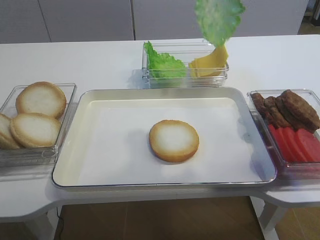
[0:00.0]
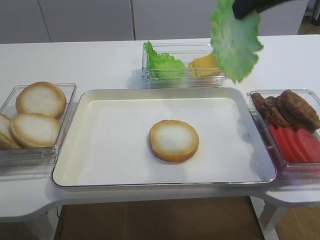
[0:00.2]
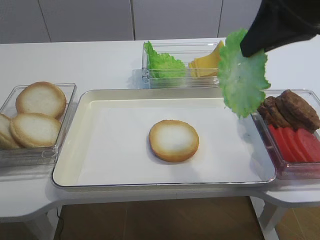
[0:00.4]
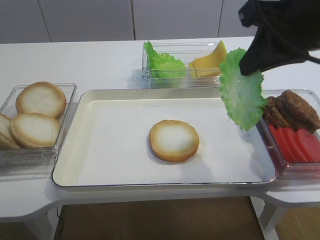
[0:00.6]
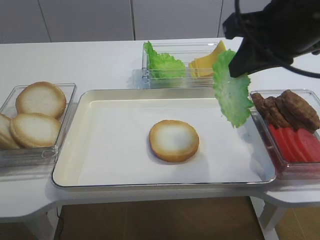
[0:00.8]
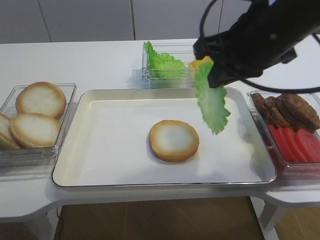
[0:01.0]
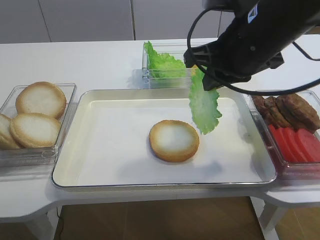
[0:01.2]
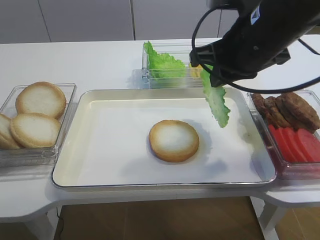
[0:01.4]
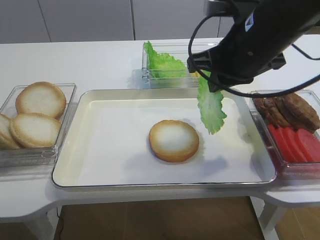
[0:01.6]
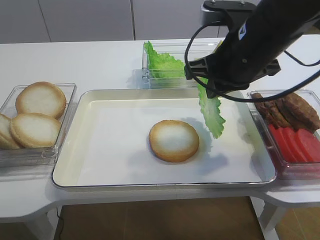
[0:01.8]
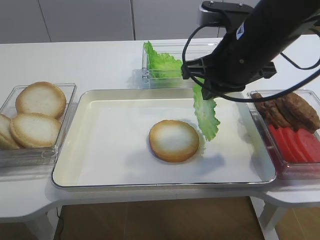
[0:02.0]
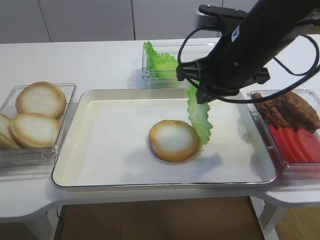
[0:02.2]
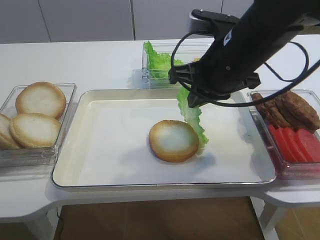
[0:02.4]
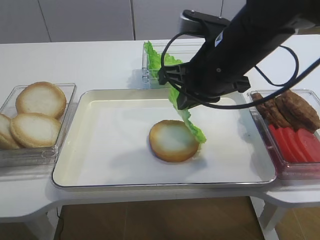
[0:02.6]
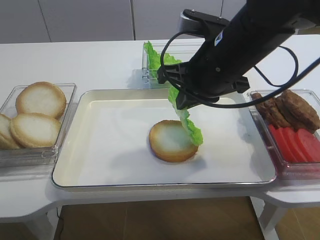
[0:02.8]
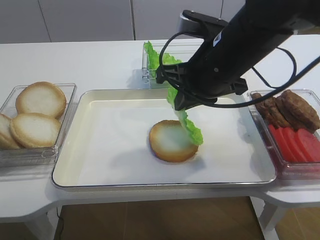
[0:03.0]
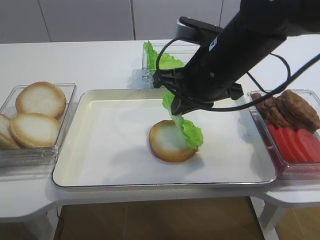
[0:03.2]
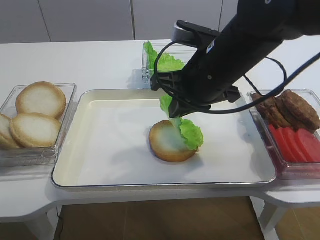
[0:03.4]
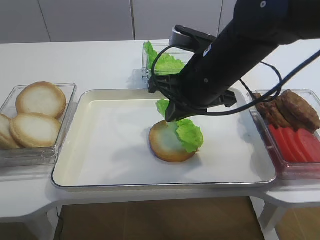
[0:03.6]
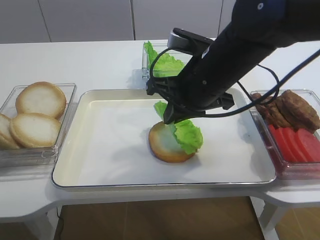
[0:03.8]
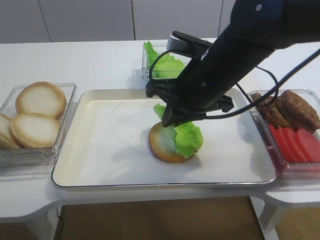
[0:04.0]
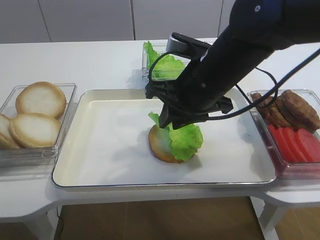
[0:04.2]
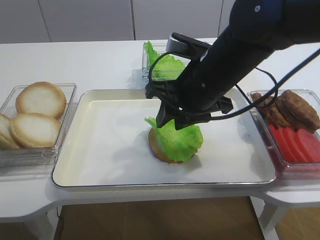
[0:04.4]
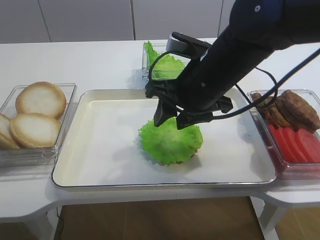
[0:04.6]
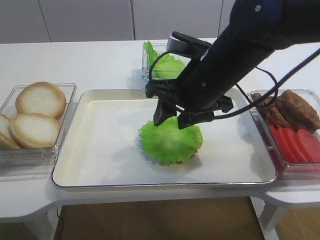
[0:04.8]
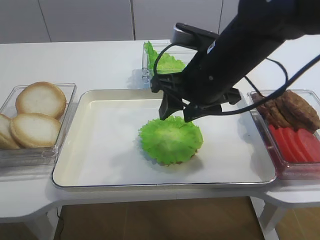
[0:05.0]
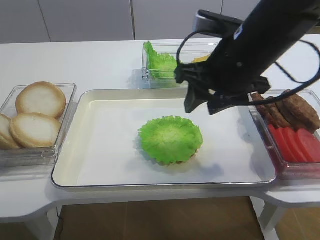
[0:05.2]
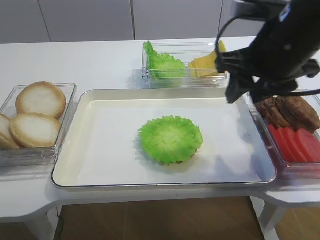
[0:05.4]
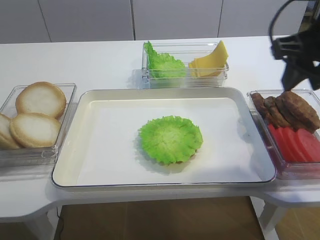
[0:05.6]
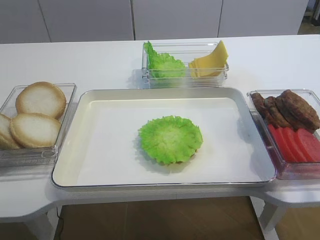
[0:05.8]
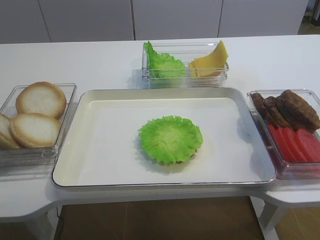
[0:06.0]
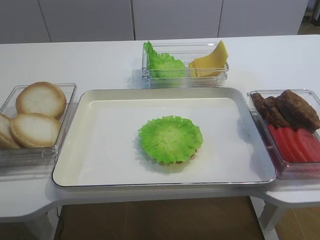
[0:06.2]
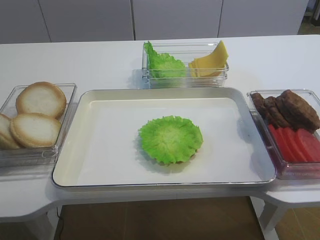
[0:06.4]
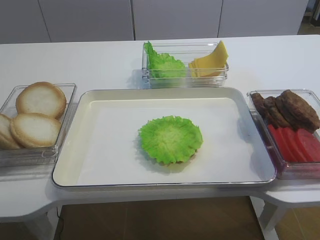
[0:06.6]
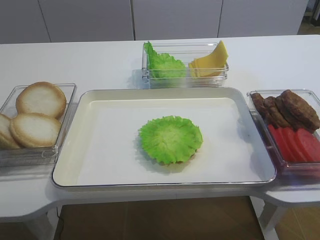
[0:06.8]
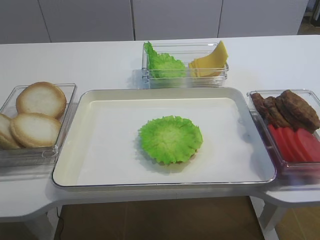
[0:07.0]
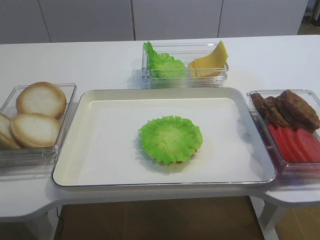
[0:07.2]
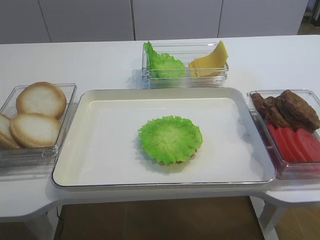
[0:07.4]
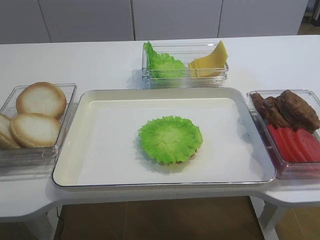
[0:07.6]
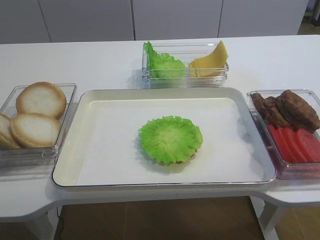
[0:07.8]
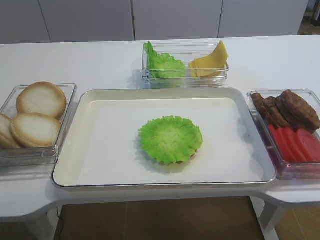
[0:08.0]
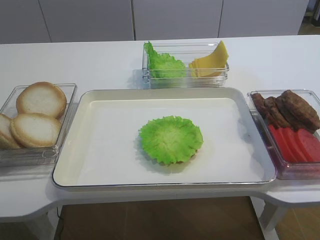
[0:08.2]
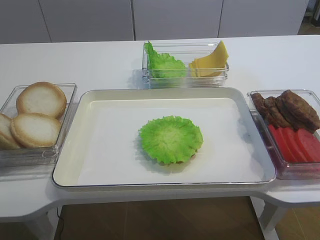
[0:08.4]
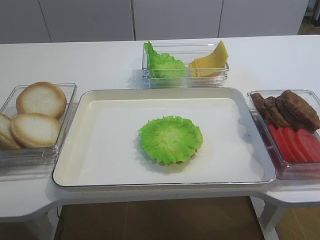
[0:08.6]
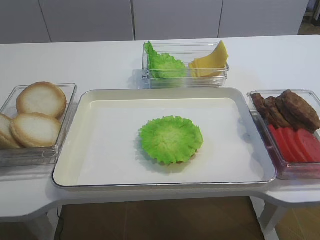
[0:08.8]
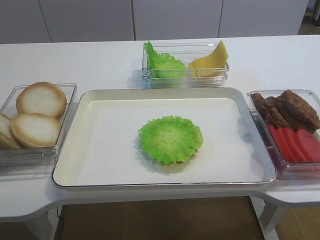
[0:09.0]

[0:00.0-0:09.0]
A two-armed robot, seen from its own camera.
Step, 0:00.0 to 0:04.6: Place the lettuce leaf on the bread slice with the right gripper.
0:00.0 to 0:01.6: The right gripper is displaced downward by some 15 cm.
0:01.6 to 0:03.0: There are only small adjustments of the grippers.
0:03.0 to 0:04.4: The right gripper opens up.
0:04.4 to 0:06.0: The right gripper moves to the right, upward and backward, approximately 25 cm.

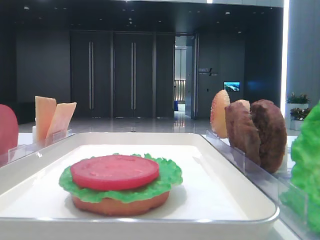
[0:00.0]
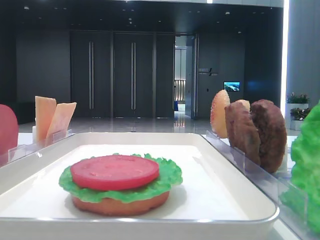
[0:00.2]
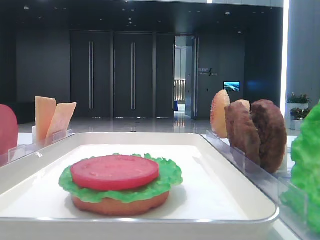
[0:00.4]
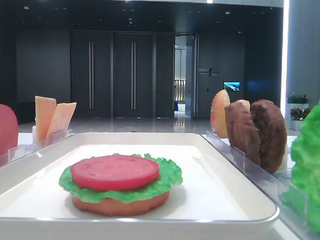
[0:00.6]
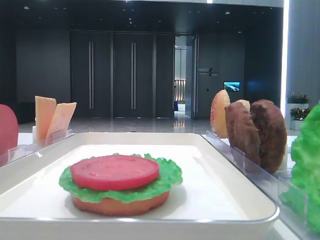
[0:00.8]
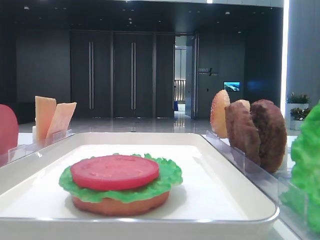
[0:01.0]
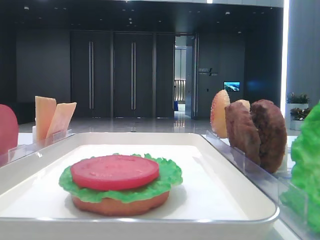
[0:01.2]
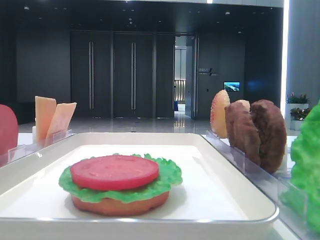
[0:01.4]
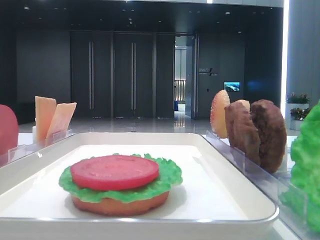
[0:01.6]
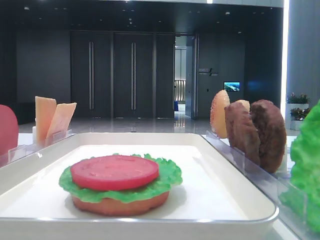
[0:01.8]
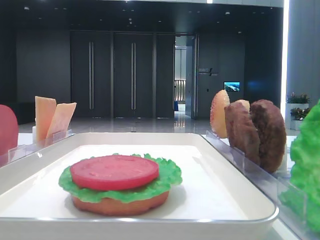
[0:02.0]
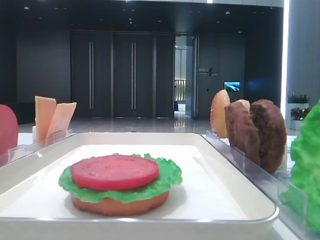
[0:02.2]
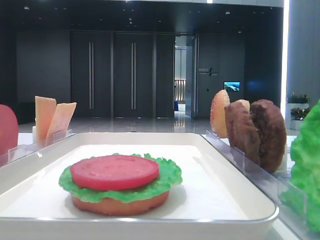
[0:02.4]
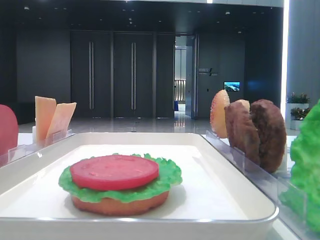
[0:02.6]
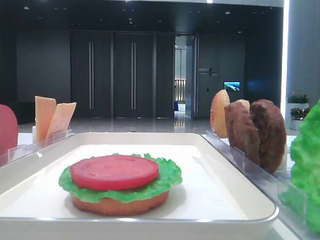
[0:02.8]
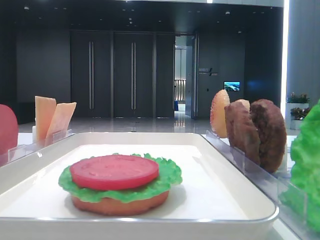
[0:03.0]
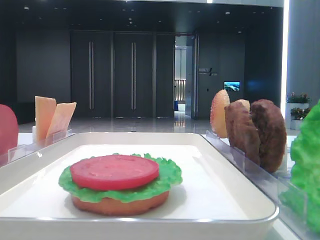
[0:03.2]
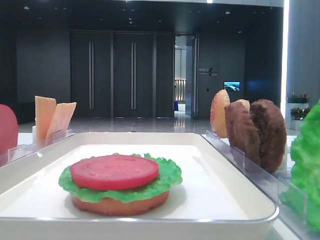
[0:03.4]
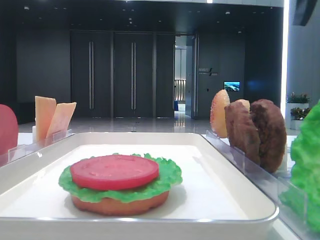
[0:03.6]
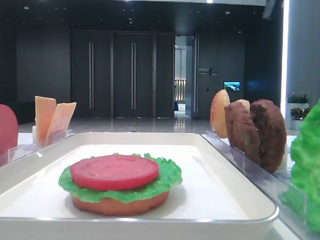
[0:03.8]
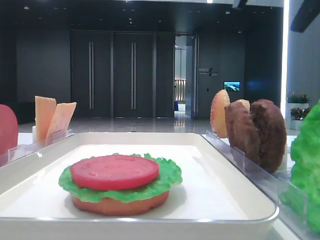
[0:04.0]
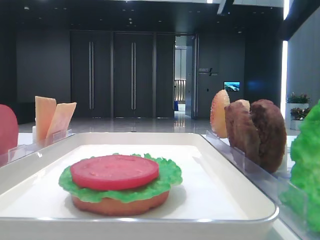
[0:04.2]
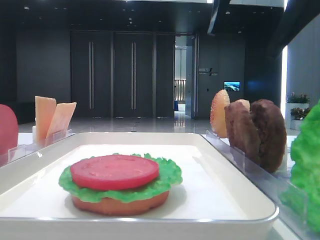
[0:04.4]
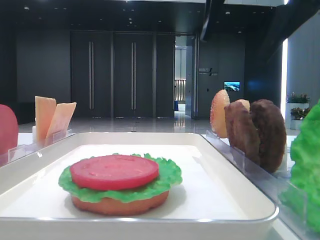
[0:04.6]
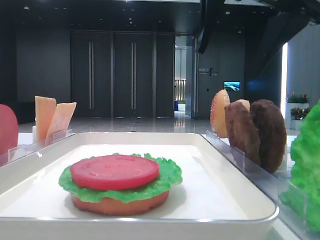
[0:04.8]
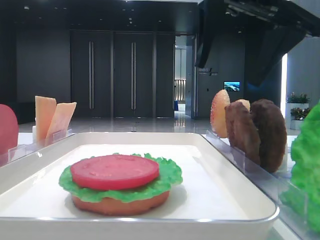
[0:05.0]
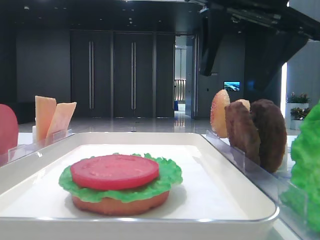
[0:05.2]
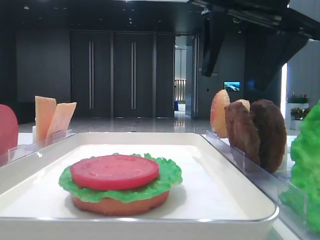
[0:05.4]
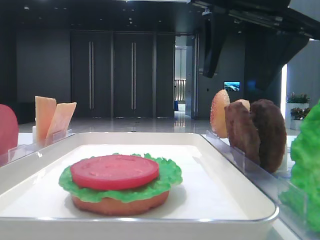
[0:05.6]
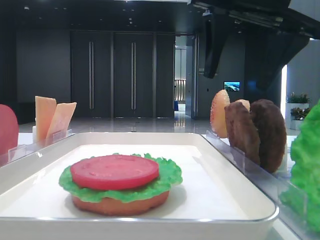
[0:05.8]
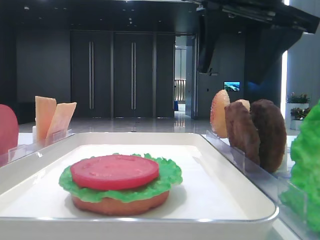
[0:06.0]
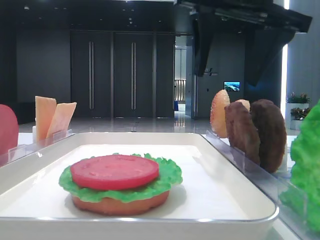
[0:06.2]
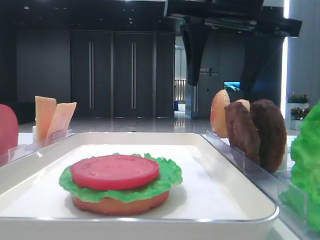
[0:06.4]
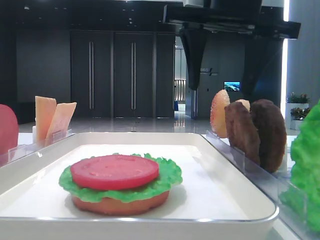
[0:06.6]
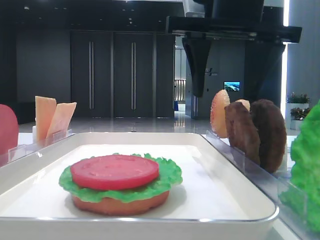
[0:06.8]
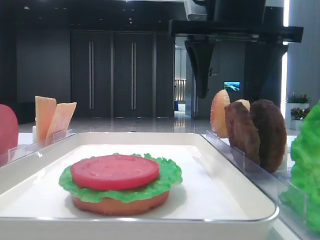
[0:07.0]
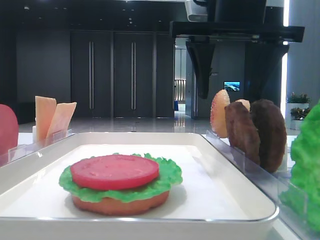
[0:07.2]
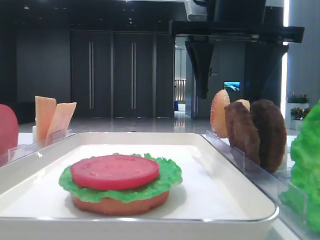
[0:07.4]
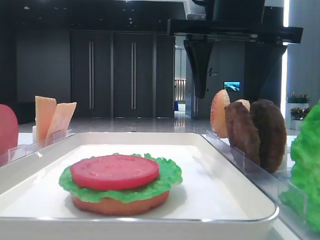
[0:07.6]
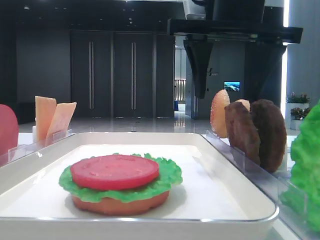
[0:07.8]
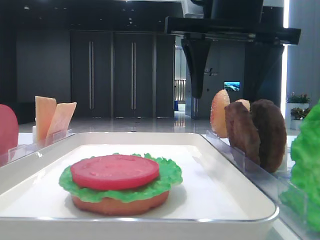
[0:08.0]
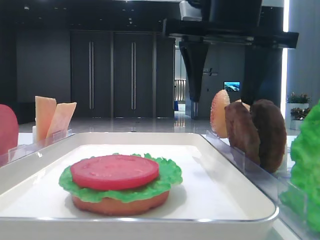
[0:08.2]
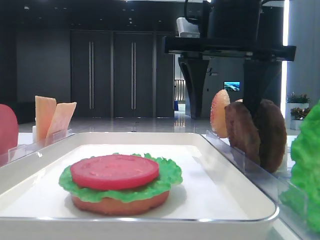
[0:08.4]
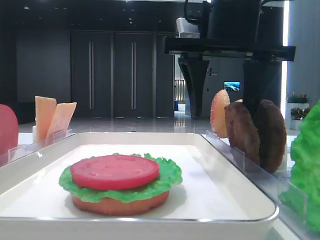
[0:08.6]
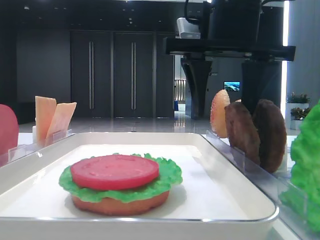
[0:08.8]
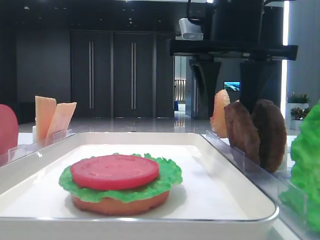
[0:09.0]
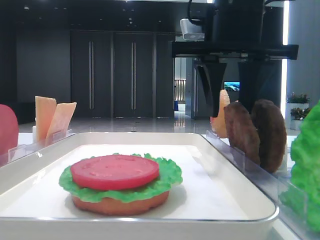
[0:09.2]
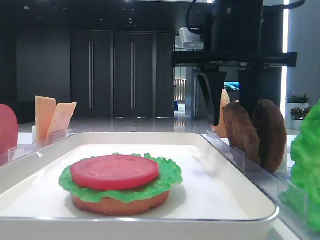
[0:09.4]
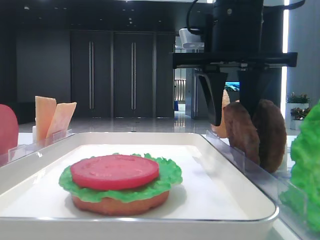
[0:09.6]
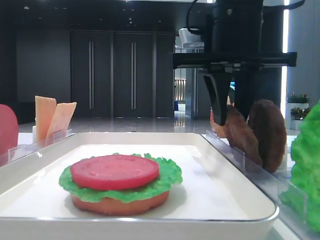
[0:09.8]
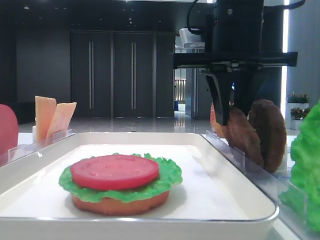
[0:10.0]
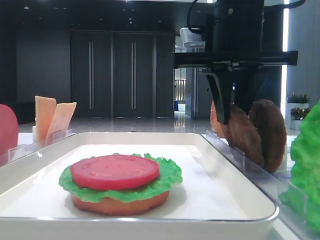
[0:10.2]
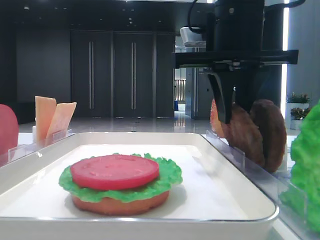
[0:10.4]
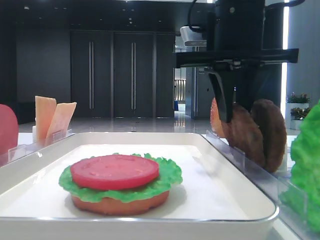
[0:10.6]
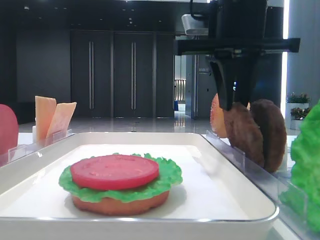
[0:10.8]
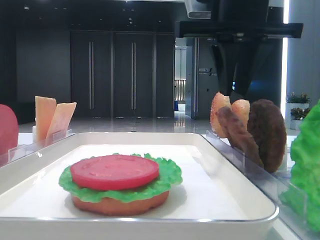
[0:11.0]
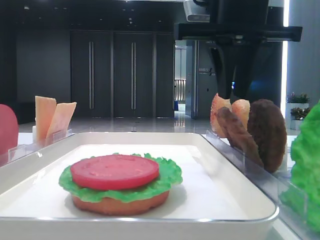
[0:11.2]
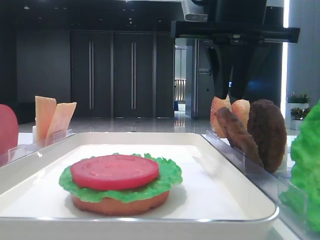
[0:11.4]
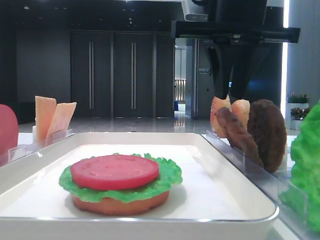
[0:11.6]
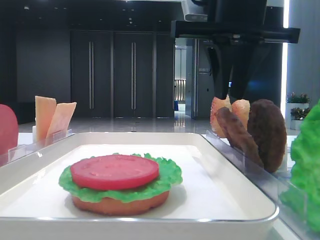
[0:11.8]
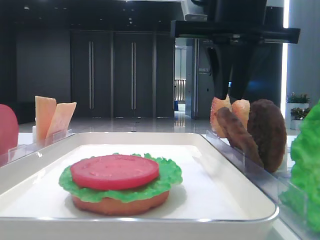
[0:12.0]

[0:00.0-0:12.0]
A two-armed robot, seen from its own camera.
0:03.0 to 0:04.4: The right gripper goes some 15 cm to the left.
0:04.4 to 0:06.0: The grippers move only a little.
0:06.0 to 0:09.0: The grippers move only a little.
0:09.0 to 0:10.4: The right gripper closes.
0:10.4 to 0:12.0: The grippers make only small movements.

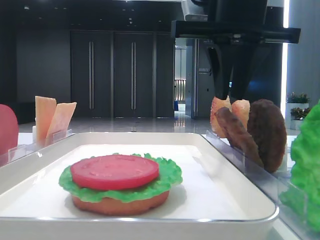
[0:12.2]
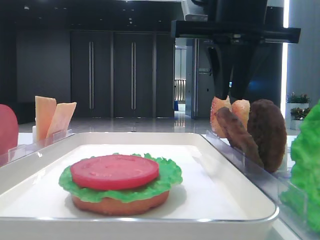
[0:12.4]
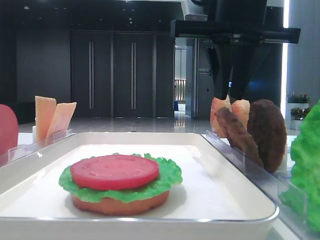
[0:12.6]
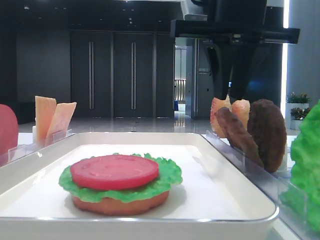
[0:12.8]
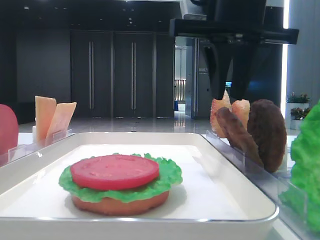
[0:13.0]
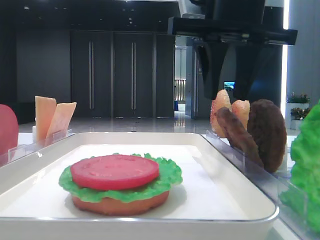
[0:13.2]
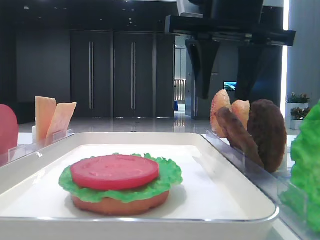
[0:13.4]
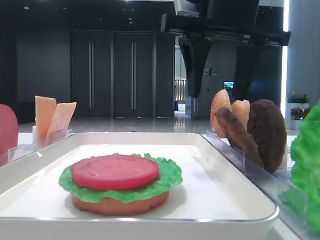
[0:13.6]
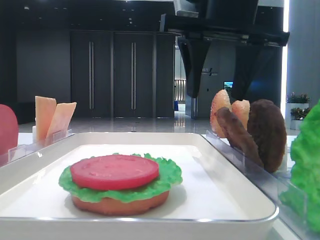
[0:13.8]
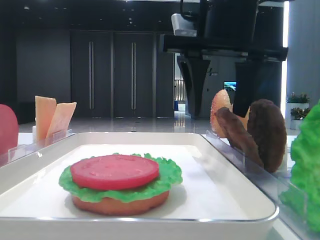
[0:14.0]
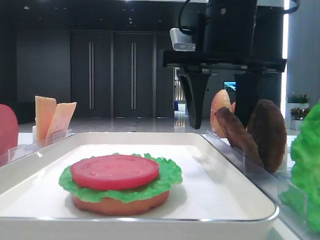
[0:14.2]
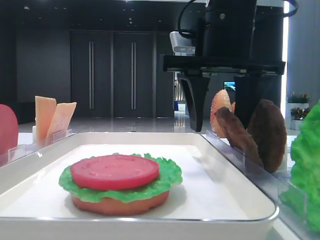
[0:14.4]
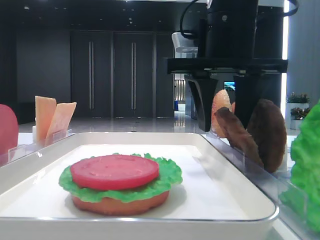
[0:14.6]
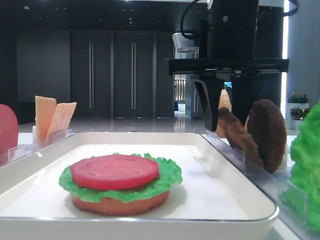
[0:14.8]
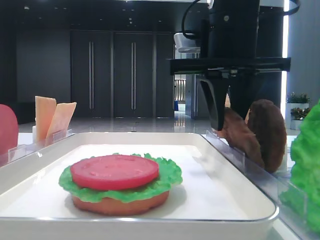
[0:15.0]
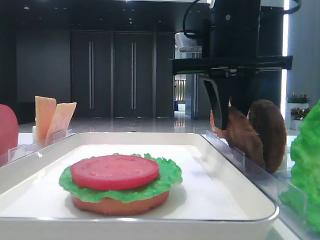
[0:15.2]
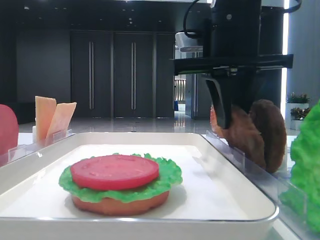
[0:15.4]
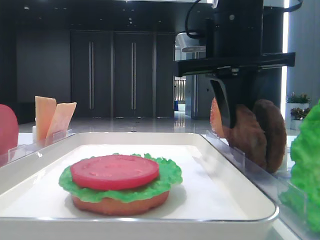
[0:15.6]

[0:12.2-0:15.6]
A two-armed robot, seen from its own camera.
0:12.2 to 0:13.8: The right gripper opens its fingers.
0:13.8 to 0:15.6: The right gripper closes.
